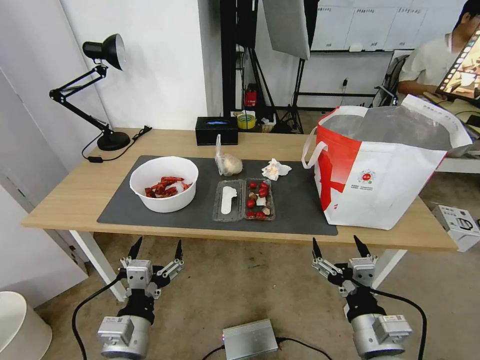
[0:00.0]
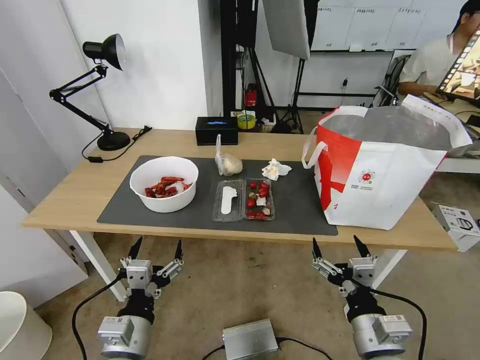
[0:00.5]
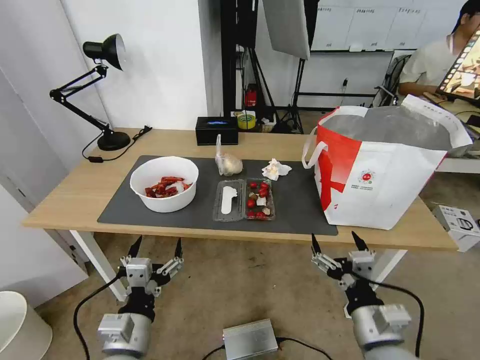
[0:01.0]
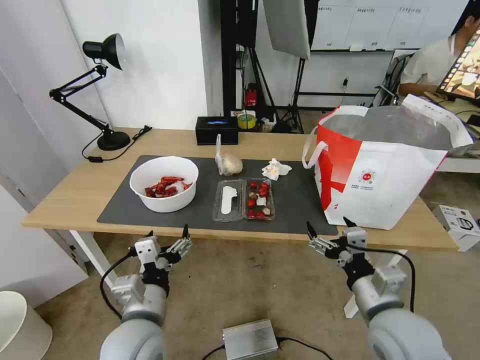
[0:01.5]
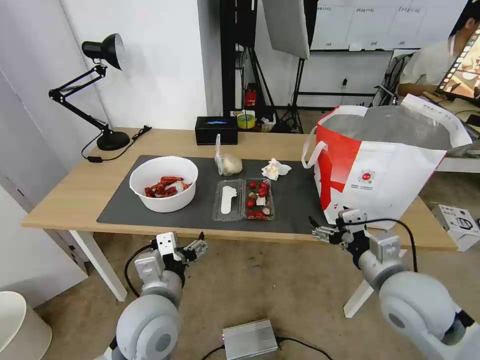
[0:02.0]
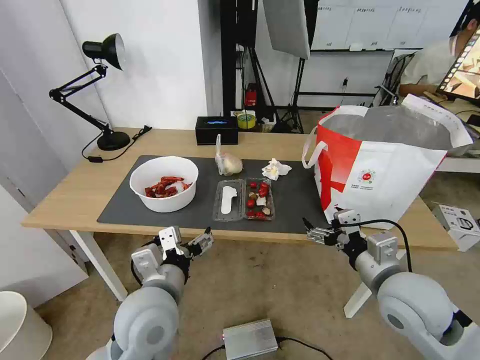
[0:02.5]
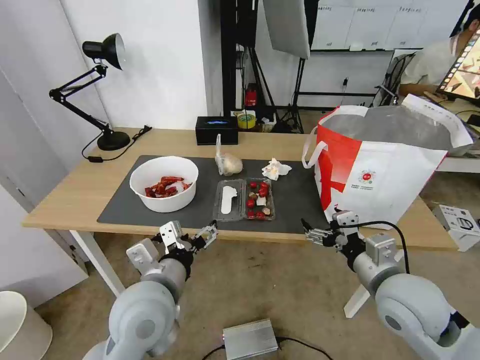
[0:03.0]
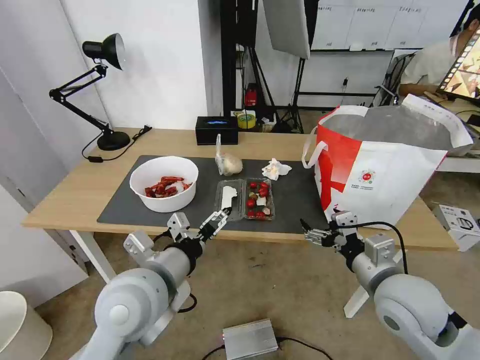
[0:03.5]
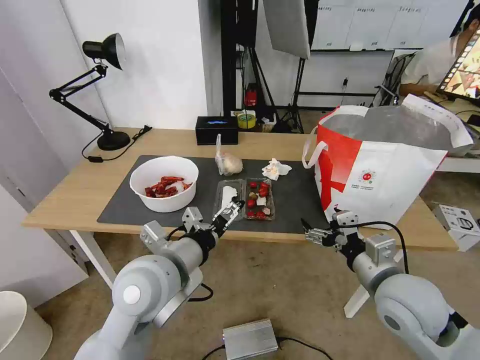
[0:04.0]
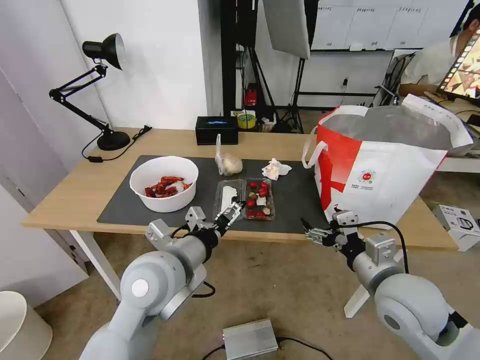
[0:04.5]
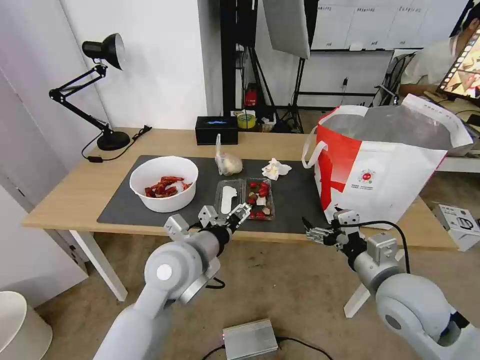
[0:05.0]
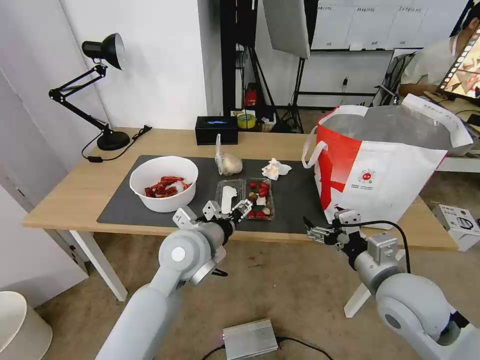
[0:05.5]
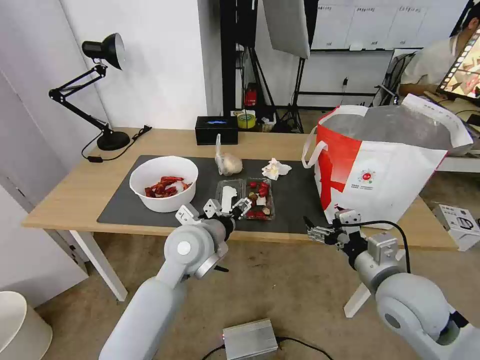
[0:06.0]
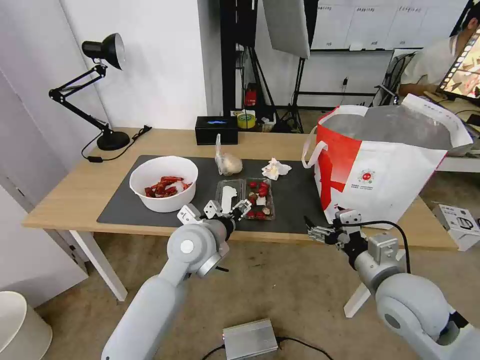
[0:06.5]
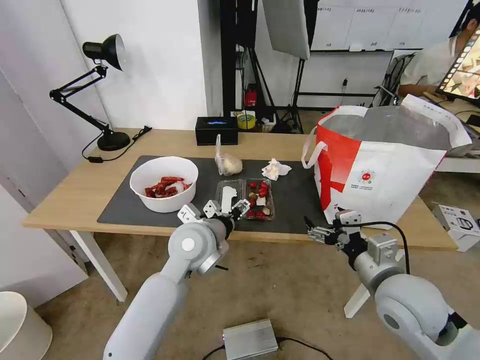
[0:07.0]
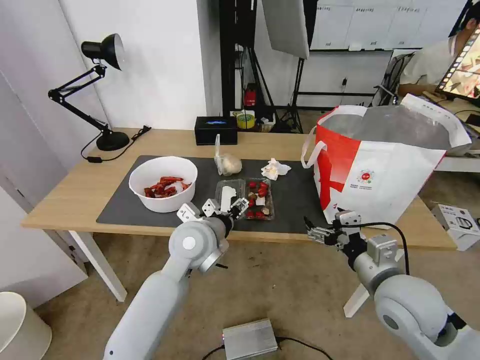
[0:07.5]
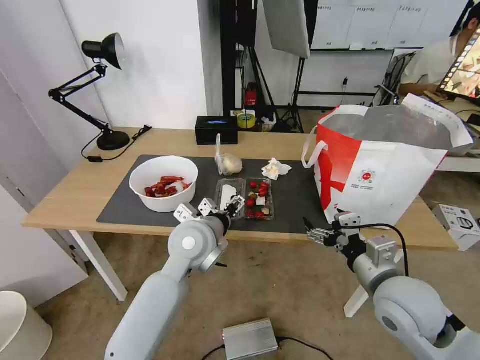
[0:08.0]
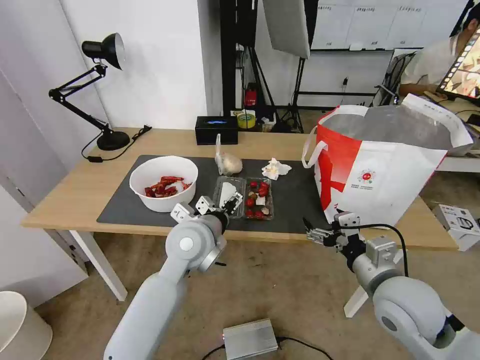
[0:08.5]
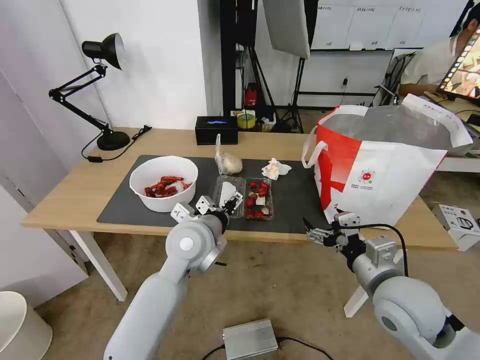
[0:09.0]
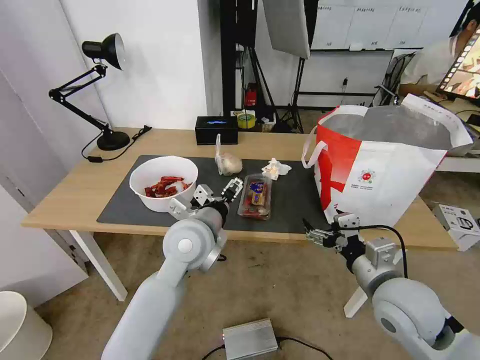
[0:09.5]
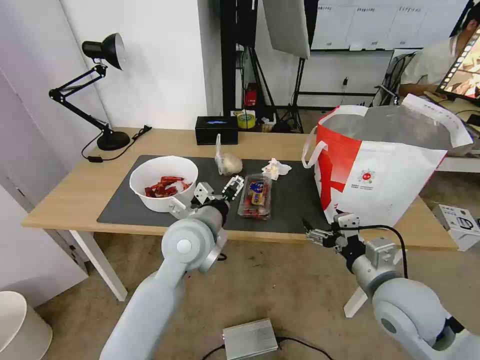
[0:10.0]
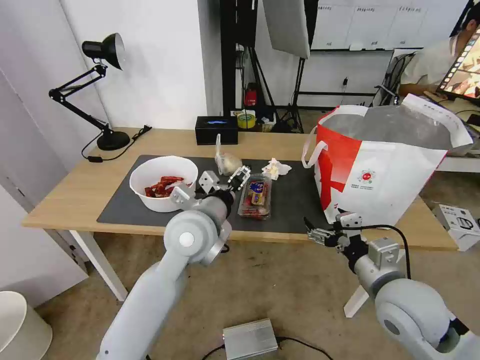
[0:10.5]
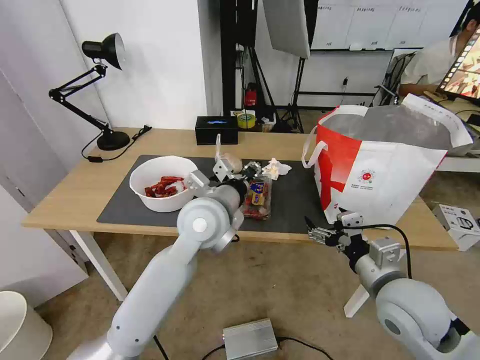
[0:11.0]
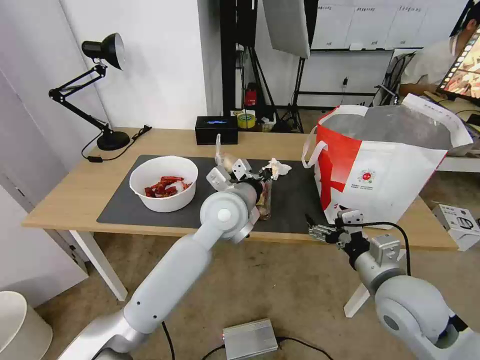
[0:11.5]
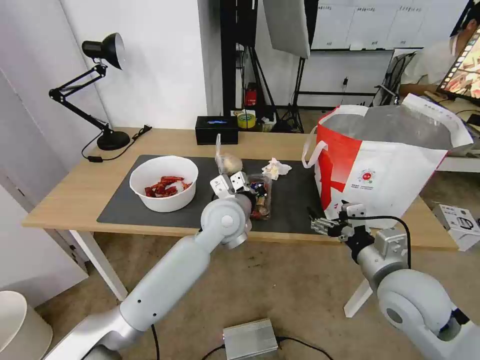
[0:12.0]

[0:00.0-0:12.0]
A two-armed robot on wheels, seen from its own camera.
Task of the whole recording: Pick up the trash from the table and place it into the takeout bag.
0:02.0 to 0:04.0: The left gripper goes about 5 cm upward.
0:04.0 to 0:06.0: The left gripper travels forward by about 10 cm.
0:06.0 to 0:10.0: The grippers make only small movements.
0:10.0 to 0:12.0: The left gripper travels forward and to the right by roughly 10 cm, and closes up.

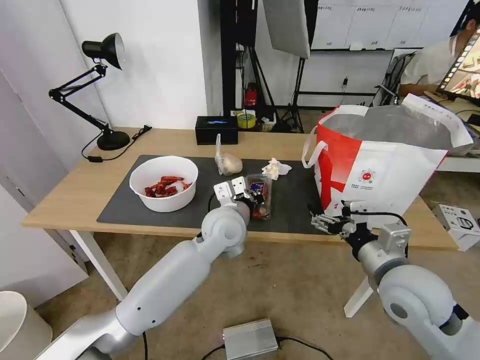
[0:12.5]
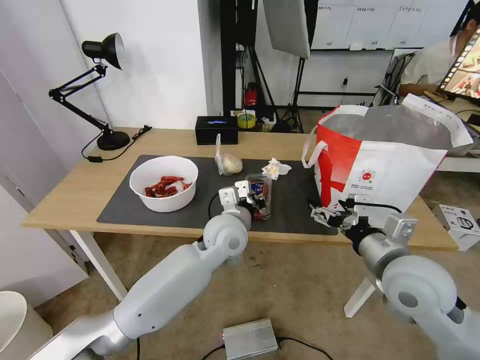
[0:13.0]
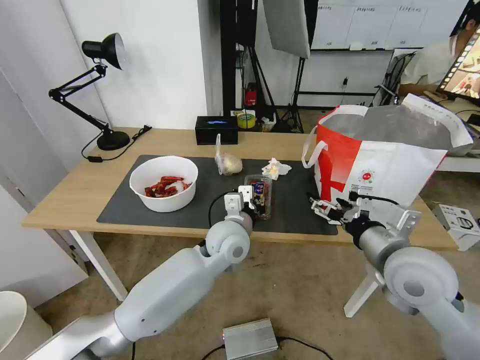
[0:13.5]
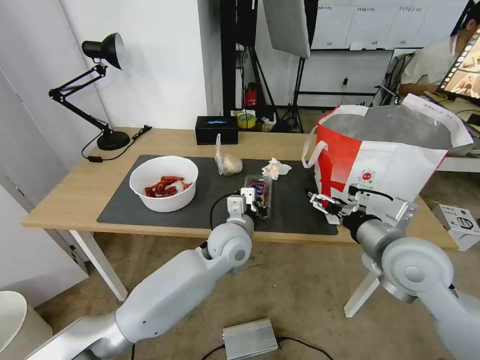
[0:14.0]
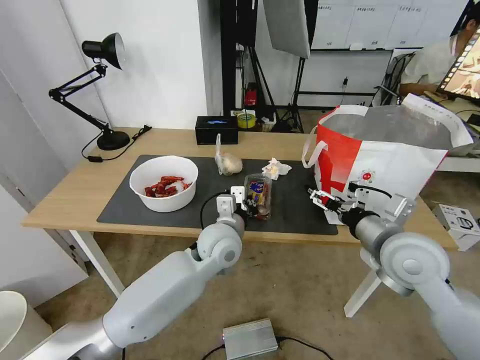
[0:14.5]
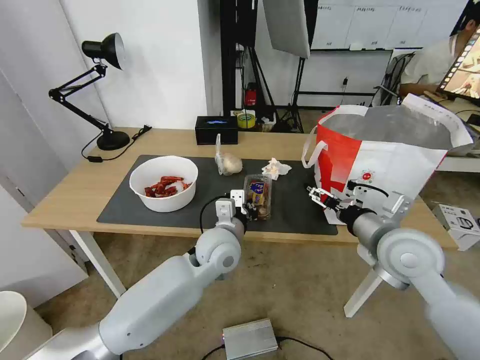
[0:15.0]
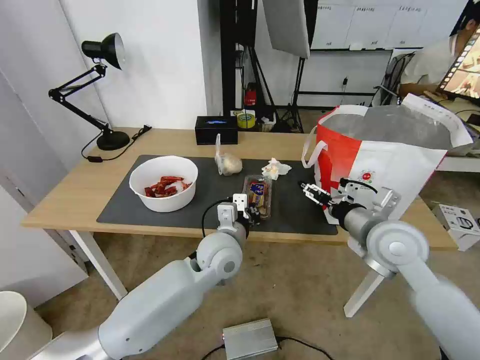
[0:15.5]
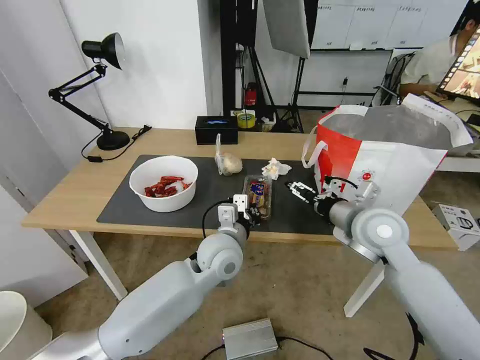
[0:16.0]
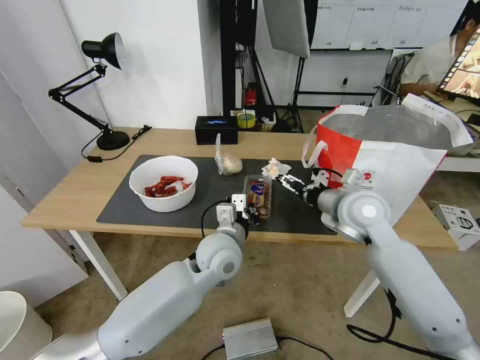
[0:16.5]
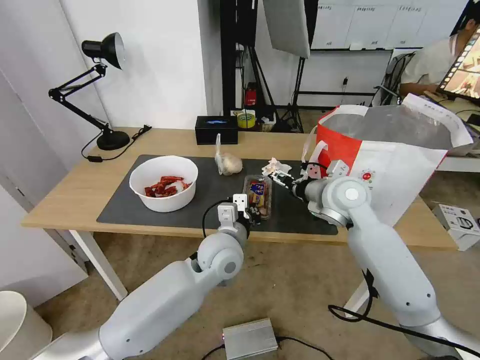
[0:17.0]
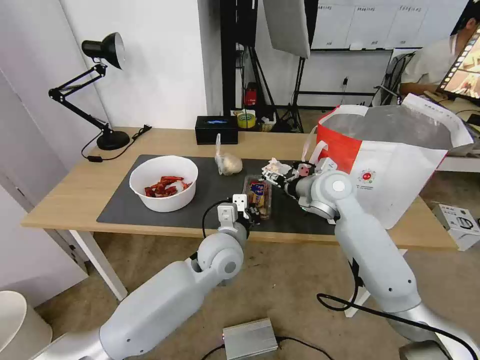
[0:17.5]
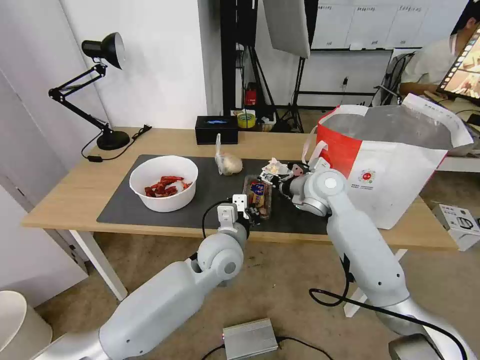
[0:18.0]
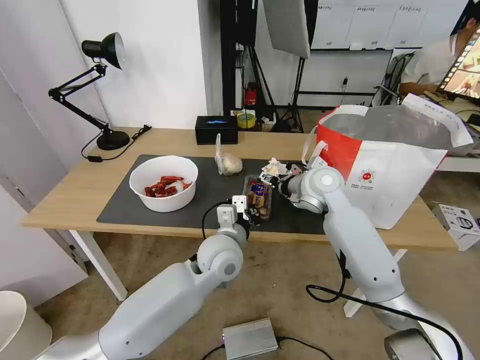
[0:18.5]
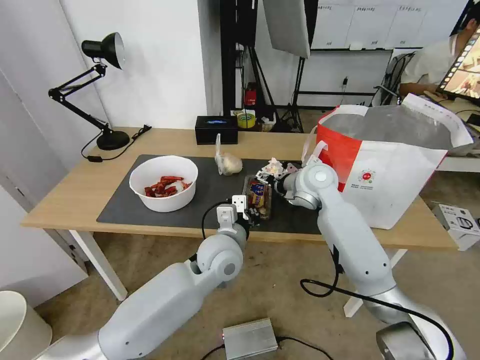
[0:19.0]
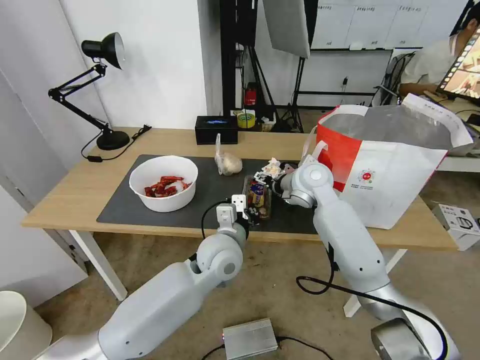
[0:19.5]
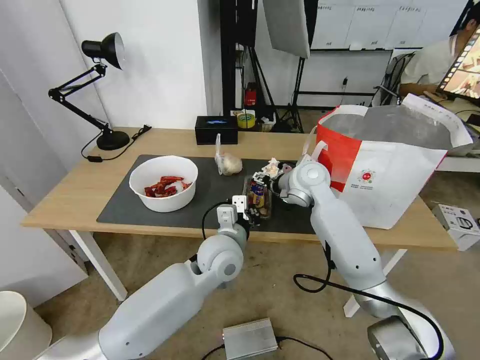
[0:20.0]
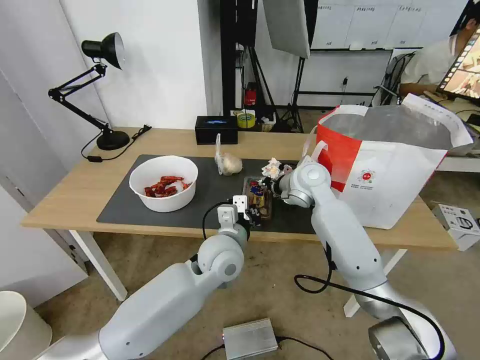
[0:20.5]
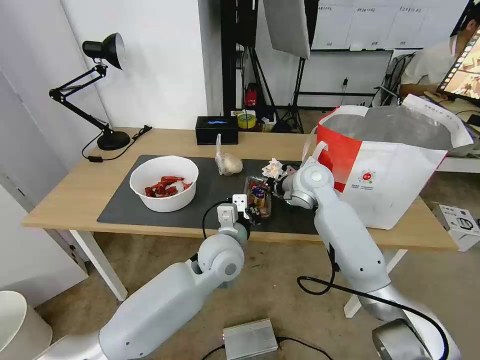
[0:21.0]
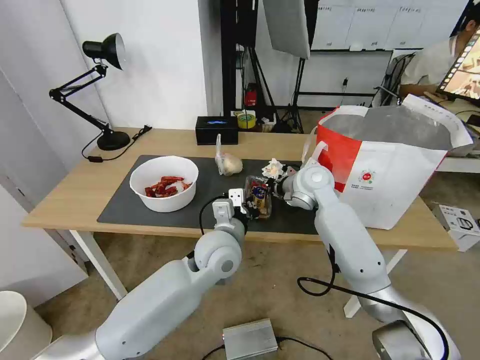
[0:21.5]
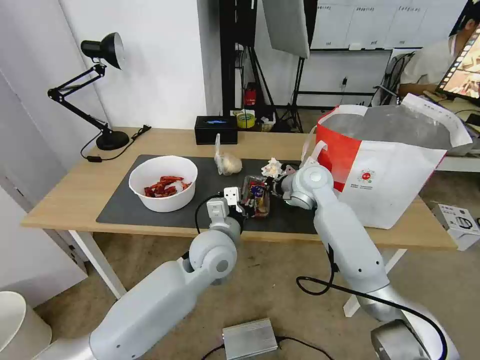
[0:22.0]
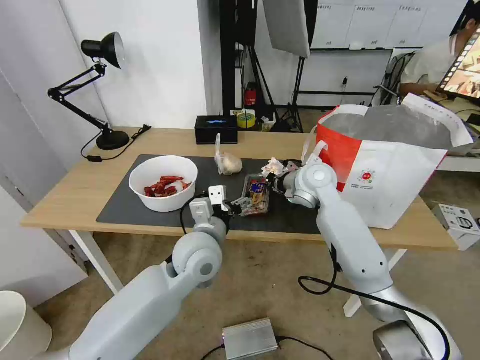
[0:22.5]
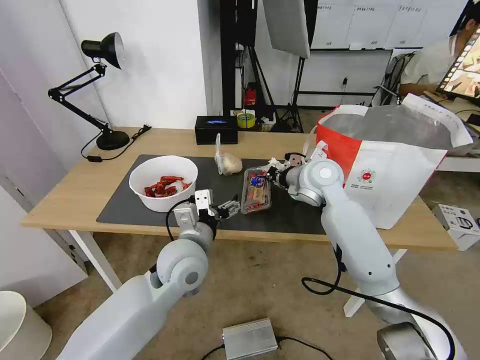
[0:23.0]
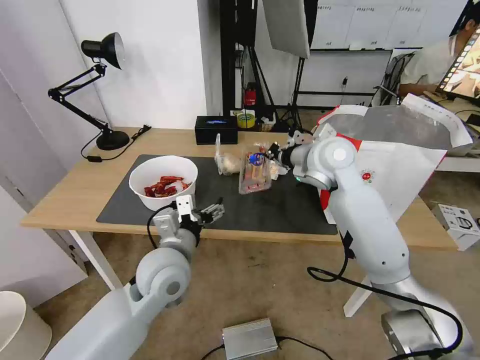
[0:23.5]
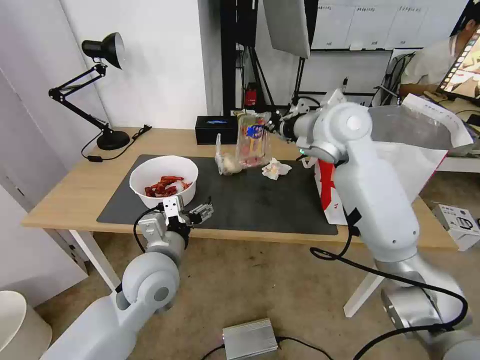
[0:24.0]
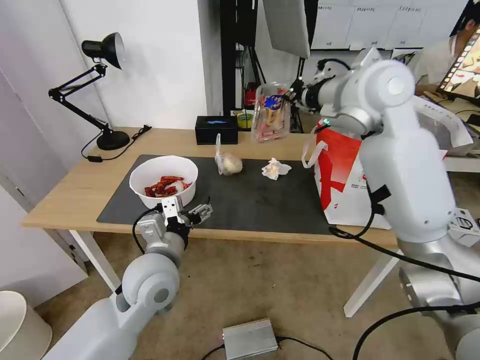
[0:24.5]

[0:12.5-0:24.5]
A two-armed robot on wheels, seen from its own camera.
Task of the whole recording: Pick up the trash from the table and place it into the takeout bag.
0:12.5 to 0:14.5: The right gripper ends up roughly 5 cm from where it was.
0:14.5 to 0:16.5: The right gripper goes some 10 cm forward.
0:16.5 to 0:18.5: The right gripper moves forward and to the left, roughly 10 cm.
0:18.5 to 0:20.5: The right gripper closes up.
0:20.5 to 0:22.5: The right gripper closes up. The left gripper changes place by approximately 5 cm, and opens up.
0:22.5 to 0:24.5: The left gripper travels to the left and backward by roughly 10 cm. Meanwhile the right gripper goes approximately 20 cm upward.

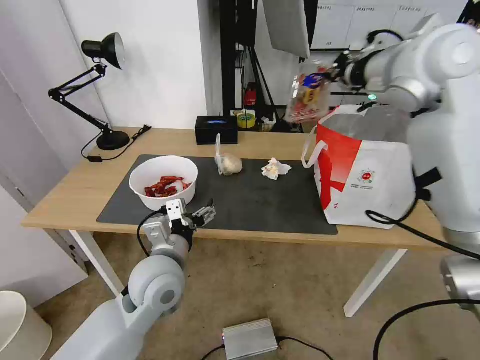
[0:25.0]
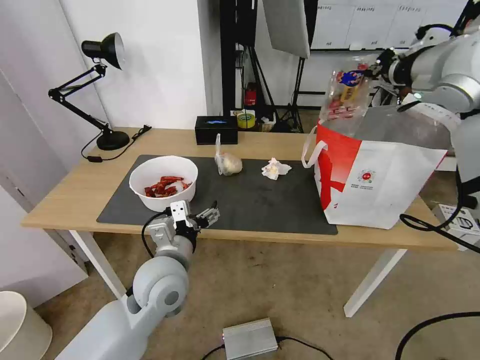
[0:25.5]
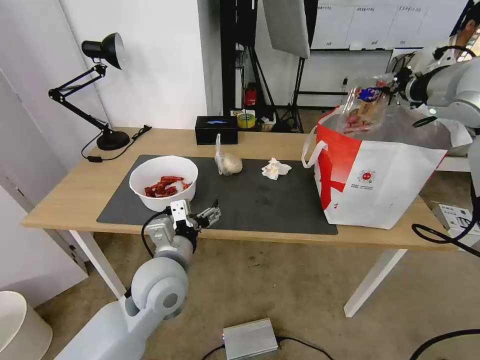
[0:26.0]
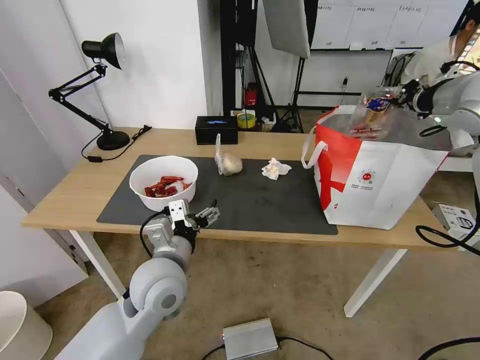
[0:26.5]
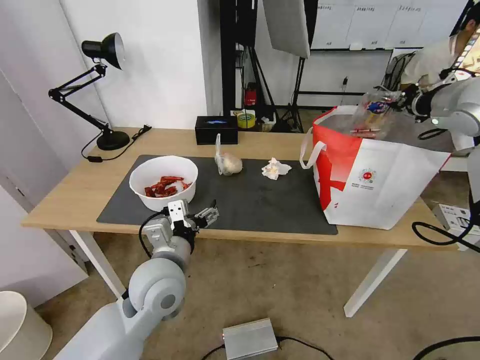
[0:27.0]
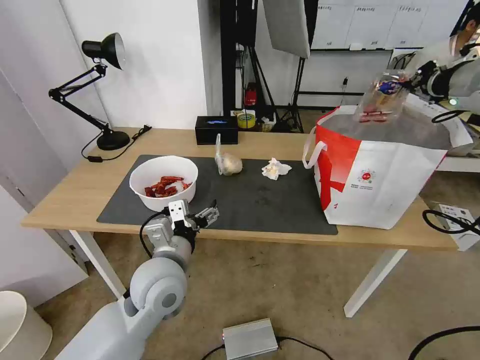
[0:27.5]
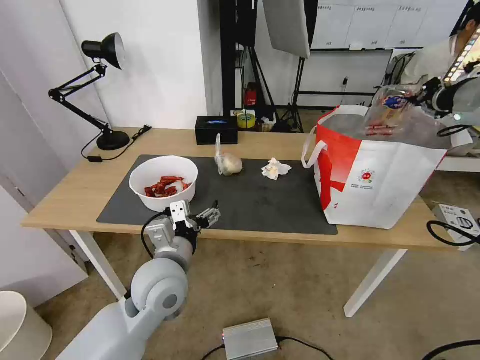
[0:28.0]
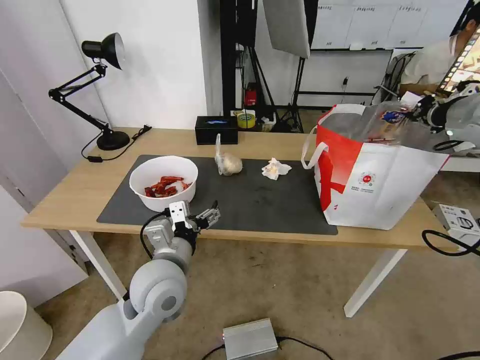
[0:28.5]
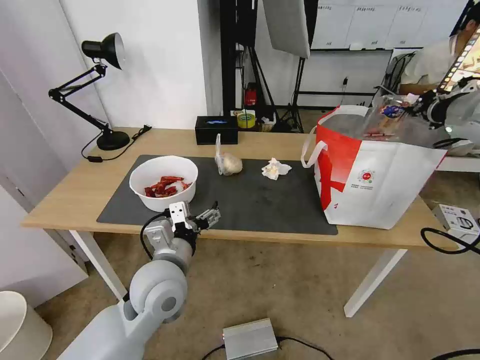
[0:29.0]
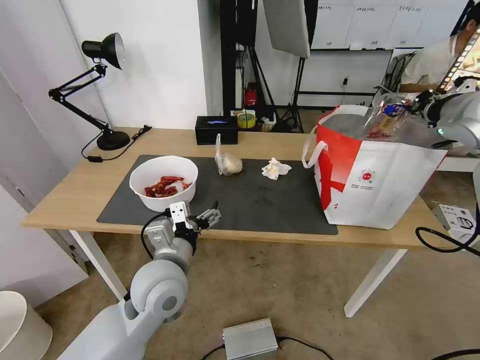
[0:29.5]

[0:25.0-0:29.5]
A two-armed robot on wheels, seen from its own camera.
Task of the whole recording: Pick up the trash from the table and place it into the takeout bag.
0:25.0 to 0:27.0: The right gripper shifts roughly 15 cm to the right.
0:27.0 to 0:29.5: The grippers stay close to where they were, moving slightly.
